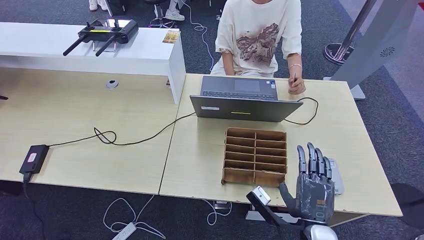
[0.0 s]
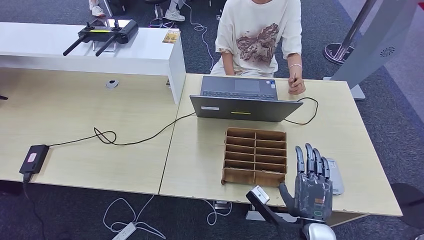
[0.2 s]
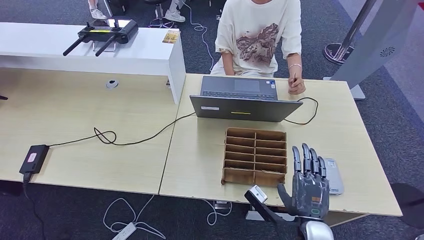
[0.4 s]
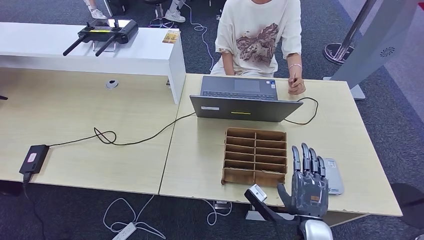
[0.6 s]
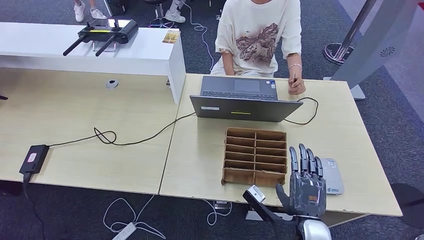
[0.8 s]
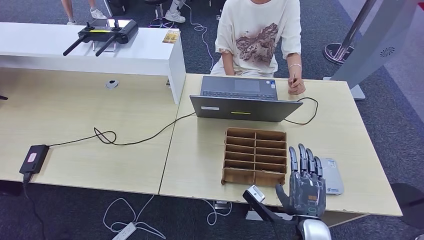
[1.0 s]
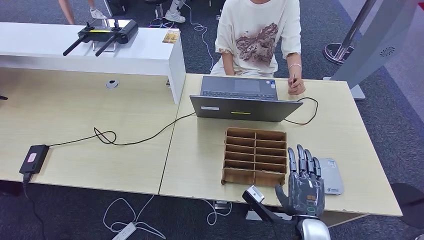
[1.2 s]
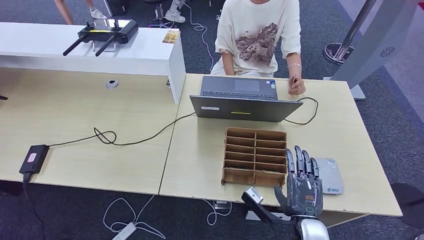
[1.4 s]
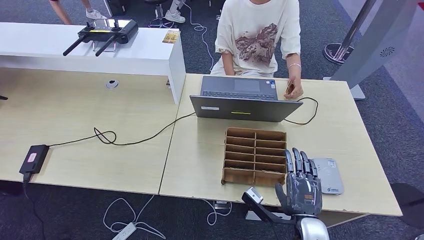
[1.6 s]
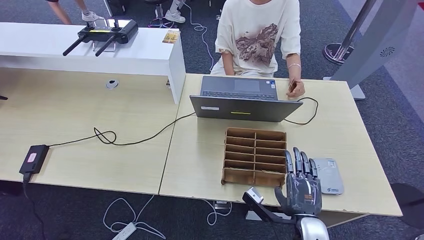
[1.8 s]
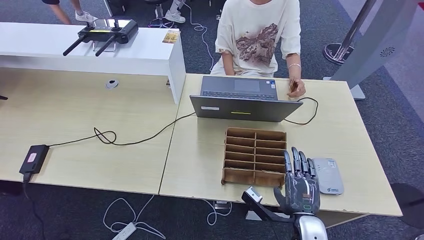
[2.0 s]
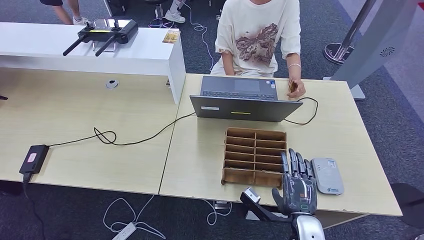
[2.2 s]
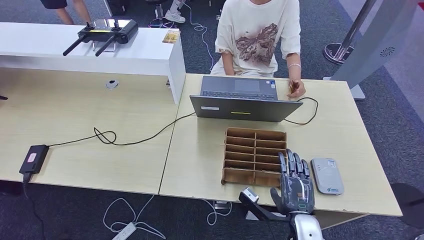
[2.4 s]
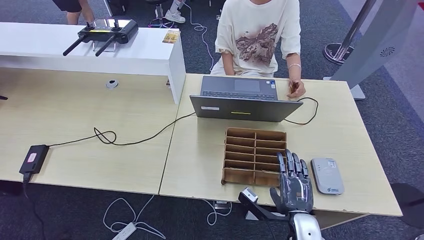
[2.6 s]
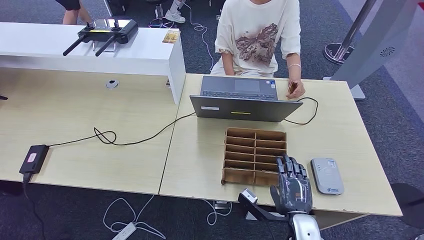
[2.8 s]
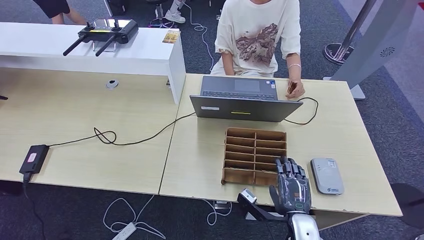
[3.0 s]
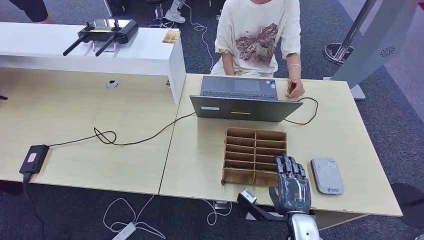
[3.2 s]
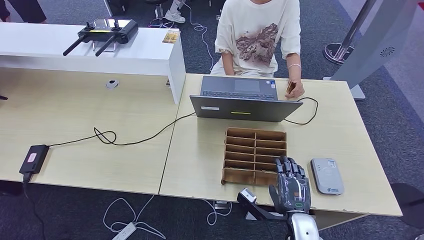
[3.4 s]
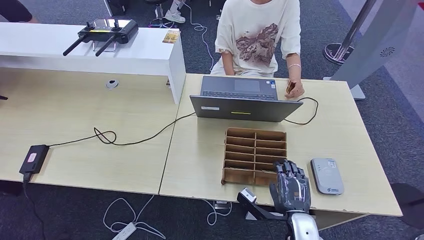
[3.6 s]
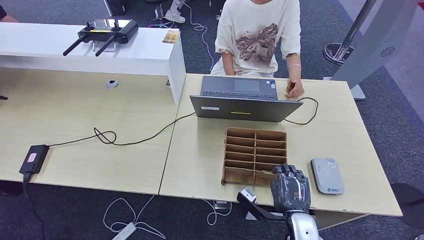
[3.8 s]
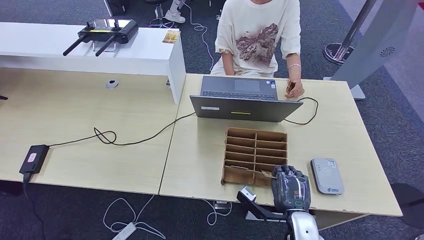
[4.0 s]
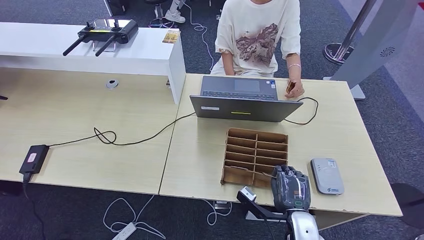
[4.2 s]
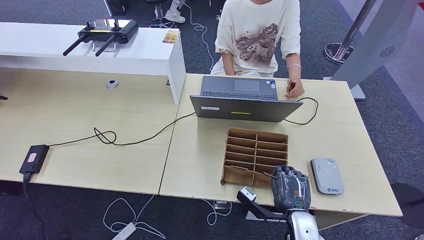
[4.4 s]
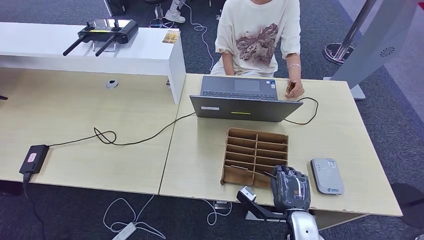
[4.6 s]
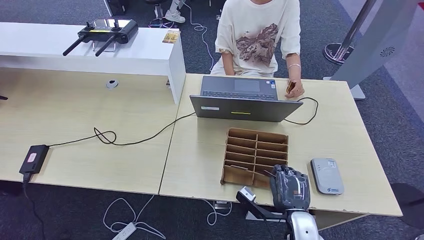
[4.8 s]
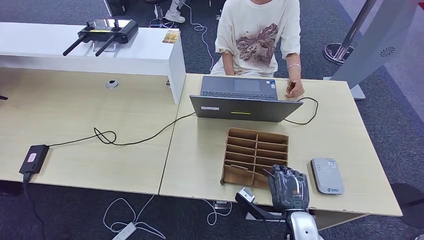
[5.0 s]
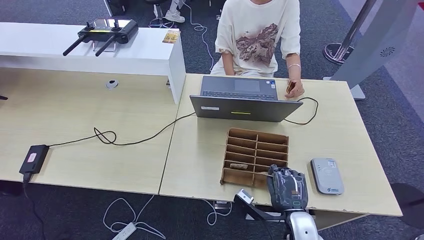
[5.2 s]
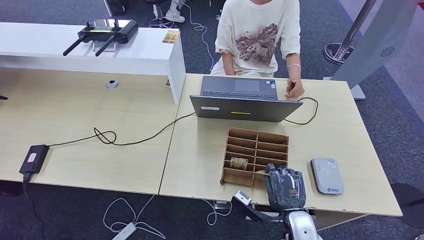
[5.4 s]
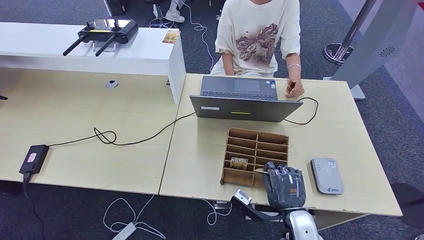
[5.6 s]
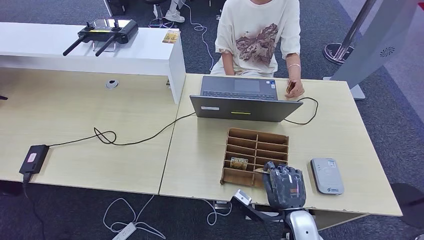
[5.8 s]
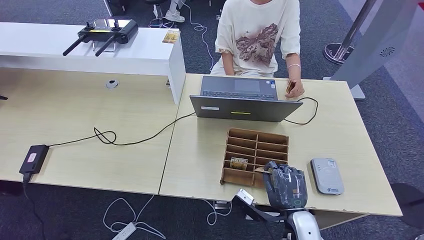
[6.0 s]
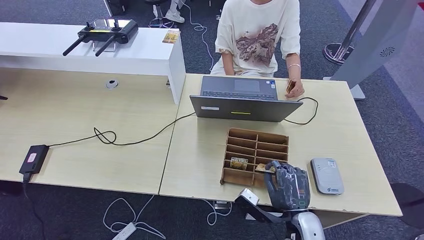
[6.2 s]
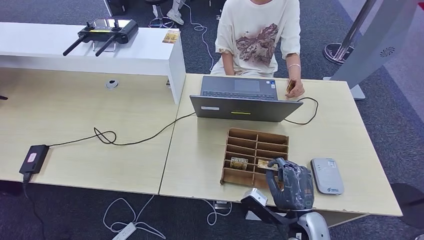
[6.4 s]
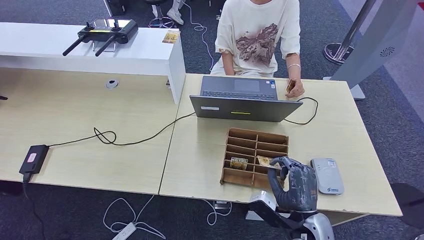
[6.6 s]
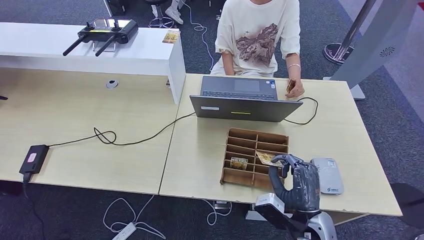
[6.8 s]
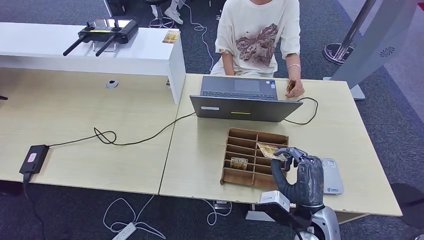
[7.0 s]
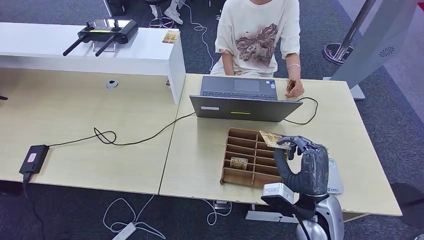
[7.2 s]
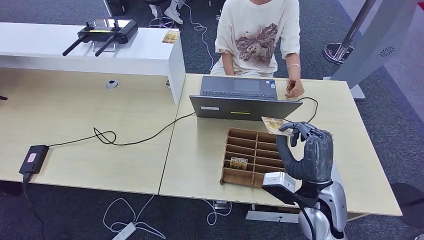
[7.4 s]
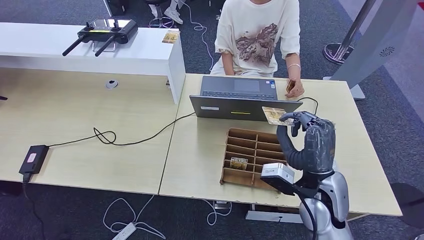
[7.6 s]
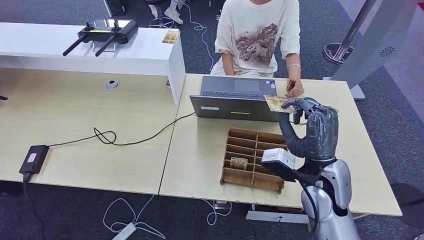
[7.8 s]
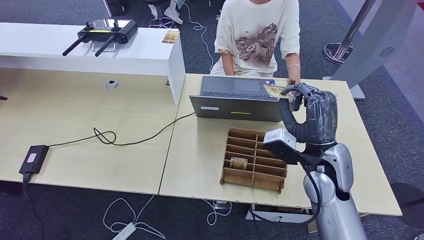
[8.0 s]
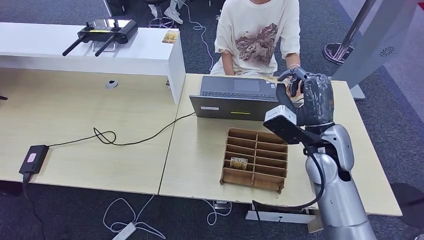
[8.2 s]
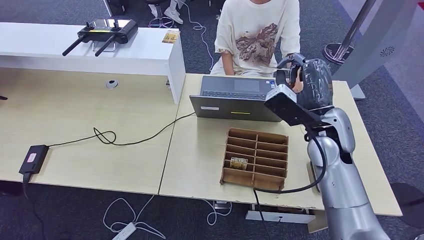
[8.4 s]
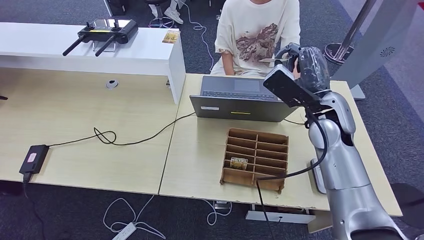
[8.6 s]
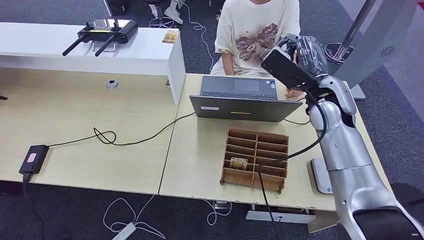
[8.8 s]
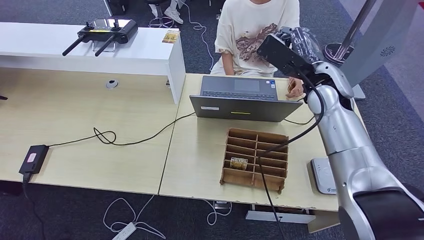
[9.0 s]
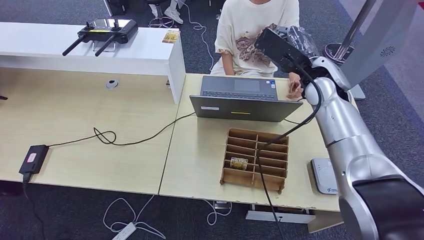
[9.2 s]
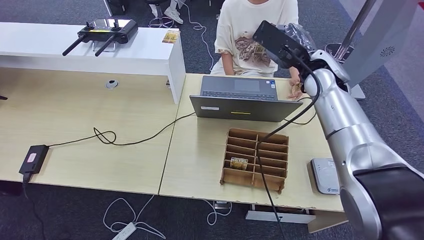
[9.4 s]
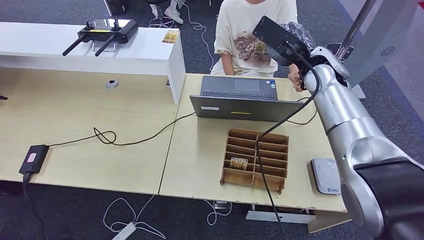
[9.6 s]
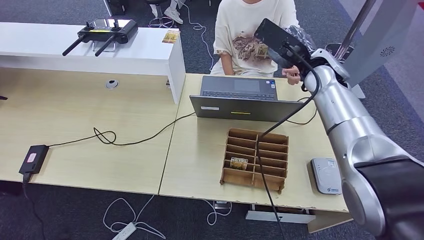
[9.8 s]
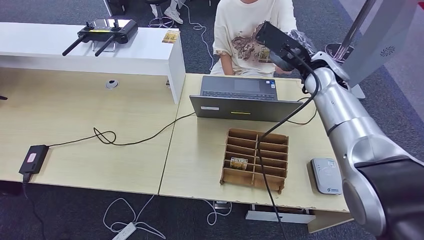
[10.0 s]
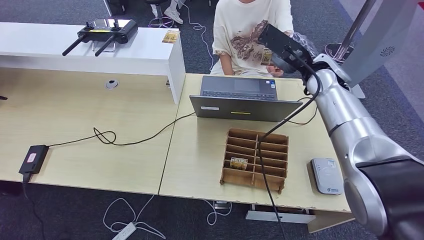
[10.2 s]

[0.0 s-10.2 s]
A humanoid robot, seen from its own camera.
Step, 3.6 to 8.4 s: Pick up the room key from the key card box.
0.0 to 3.0 s: The hands move only a little.
3.0 to 4.4 s: Both hands stay about where they are.
4.4 to 5.8 s: There are only small adjustments of the hands.
5.8 to 7.2 s: The right hand is displaced upward by roughly 10 cm.
7.2 to 8.8 s: The right hand travels forward and upward by approximately 25 cm.
8.8 to 10.2 s: The right hand is displaced forward by roughly 5 cm.

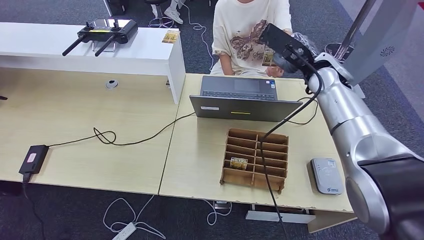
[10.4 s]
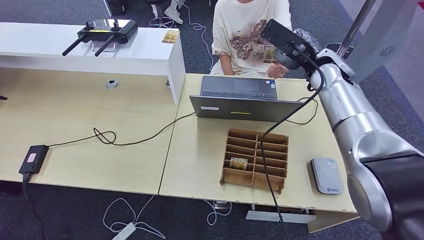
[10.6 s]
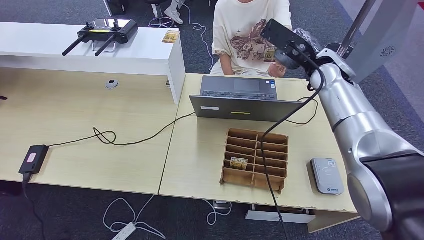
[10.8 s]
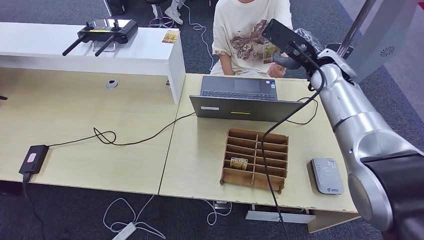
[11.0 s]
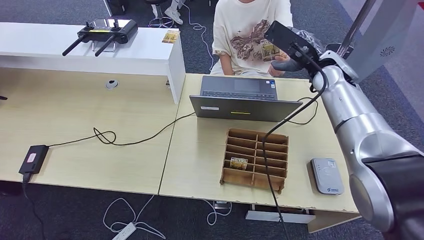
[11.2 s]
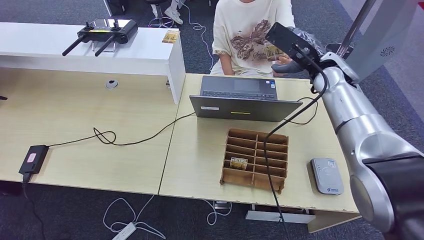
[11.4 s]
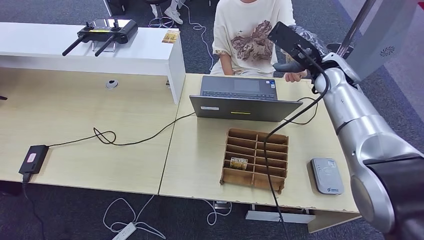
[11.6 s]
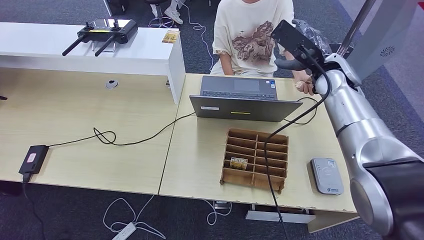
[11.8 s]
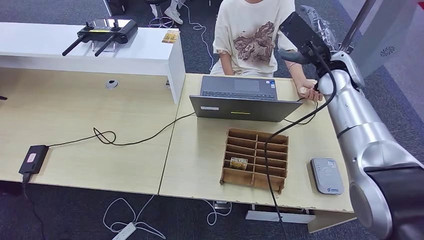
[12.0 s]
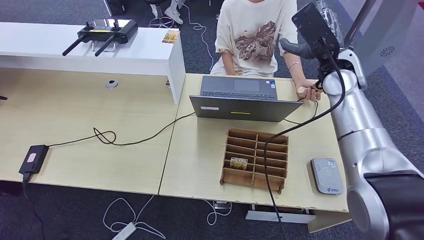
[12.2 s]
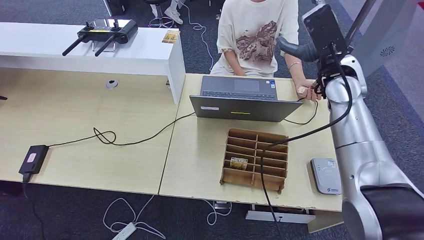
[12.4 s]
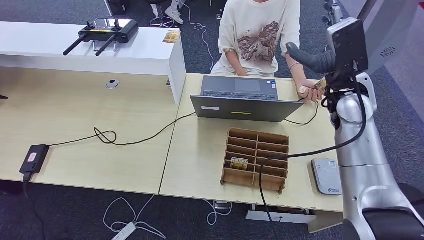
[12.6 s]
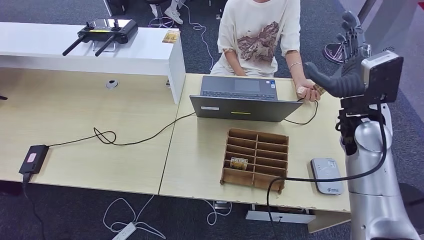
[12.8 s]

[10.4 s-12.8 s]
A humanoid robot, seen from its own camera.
Step, 10.4 to 12.8 s: Hand the room key to the person.
10.4 to 11.6 s: The hands stay close to where they were, moving slightly.
11.6 to 12.8 s: The right hand travels backward by some 10 cm.

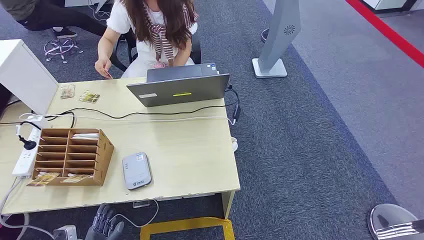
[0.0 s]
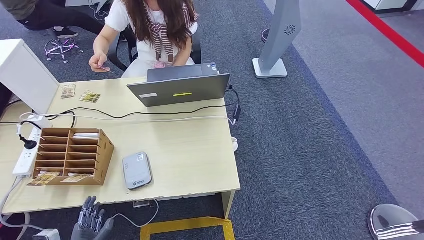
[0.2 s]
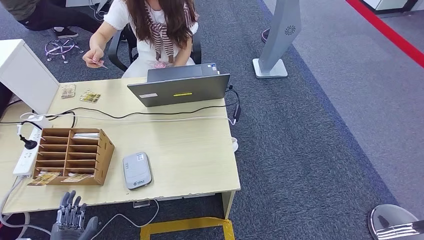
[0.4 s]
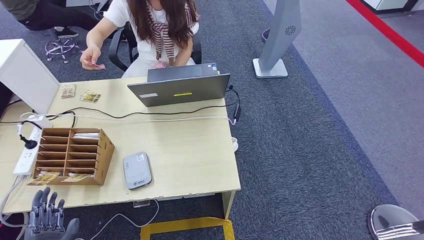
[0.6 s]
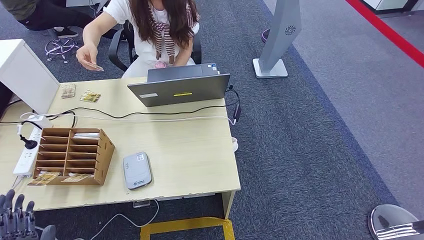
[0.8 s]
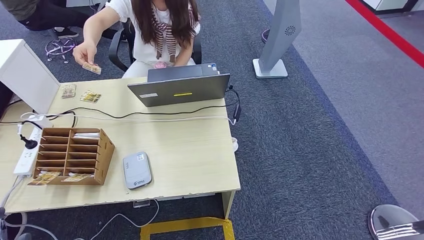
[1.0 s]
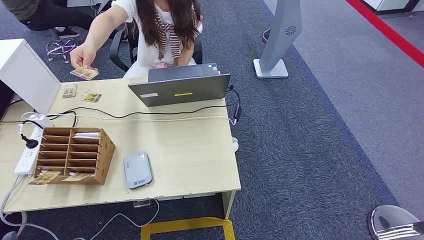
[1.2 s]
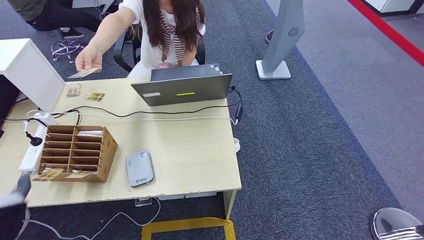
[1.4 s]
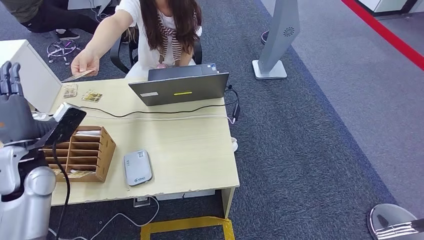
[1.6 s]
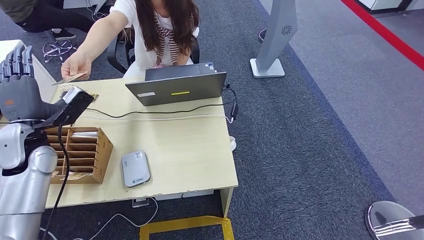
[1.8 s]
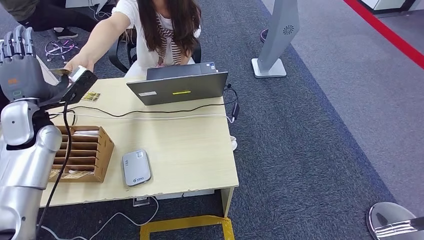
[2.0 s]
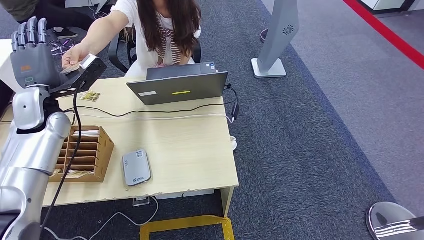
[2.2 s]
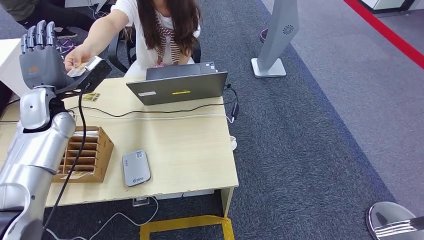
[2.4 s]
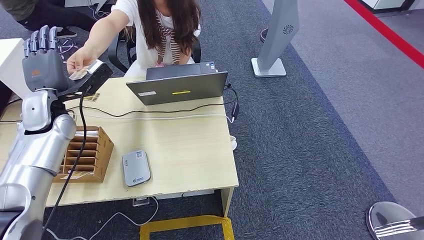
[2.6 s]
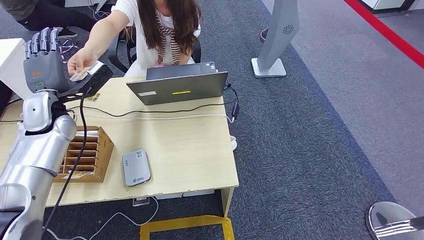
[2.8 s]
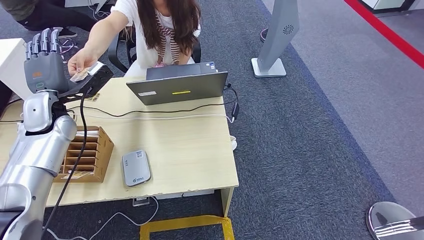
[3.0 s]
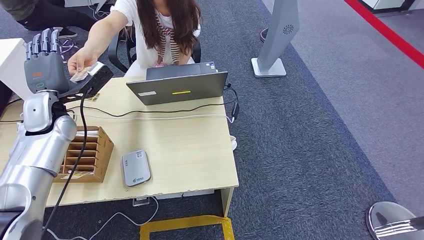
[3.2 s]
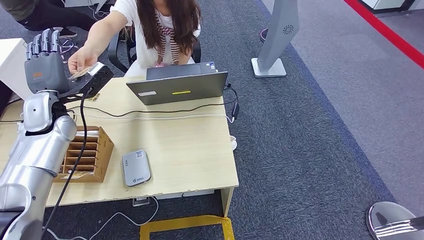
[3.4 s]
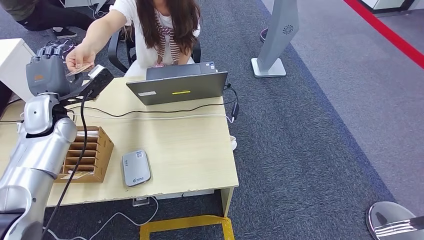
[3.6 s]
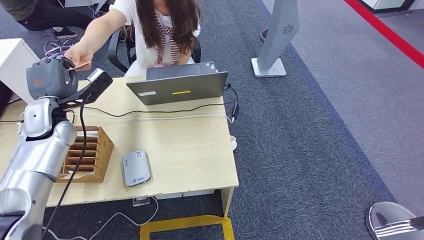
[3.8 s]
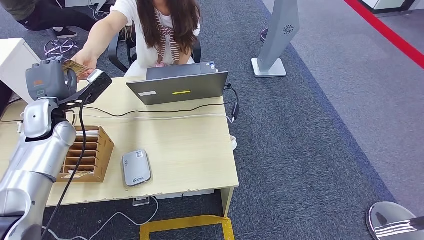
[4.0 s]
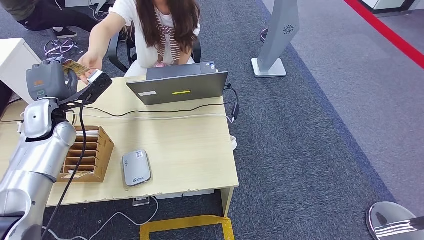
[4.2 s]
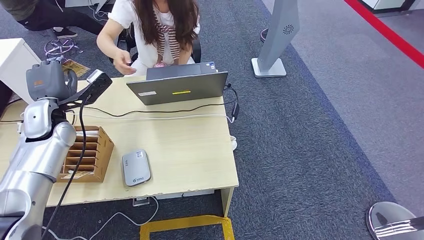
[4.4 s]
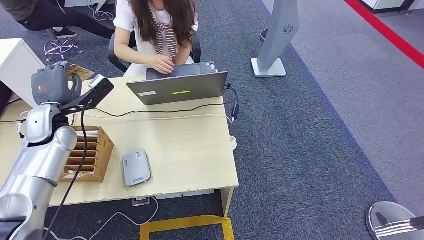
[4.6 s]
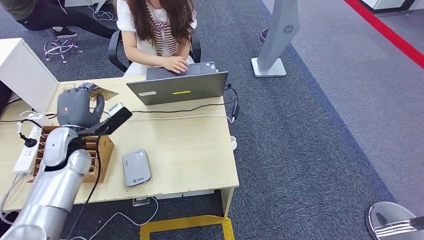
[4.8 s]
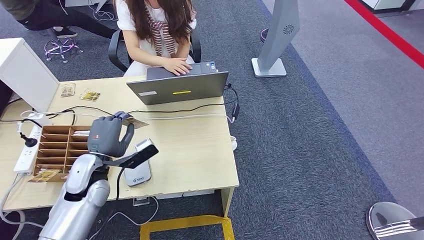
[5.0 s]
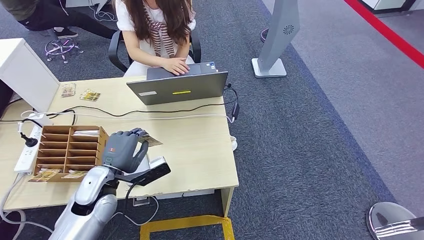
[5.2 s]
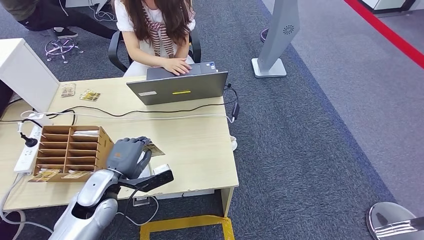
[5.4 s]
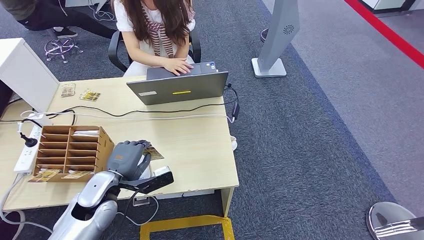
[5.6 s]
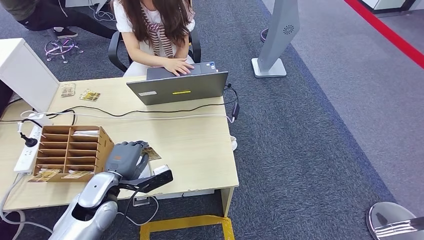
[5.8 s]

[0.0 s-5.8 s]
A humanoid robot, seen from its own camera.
Step, 0.0 to 2.2 s: Take the ID card from the person's hand.
2.8 to 4.4 s: The hands stay close to where they were, moving slightly.
4.4 to 5.8 s: The left hand heads backward, downward and to the right, covering roughly 20 cm.
